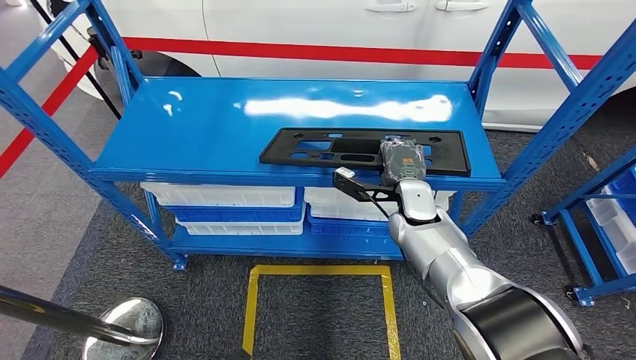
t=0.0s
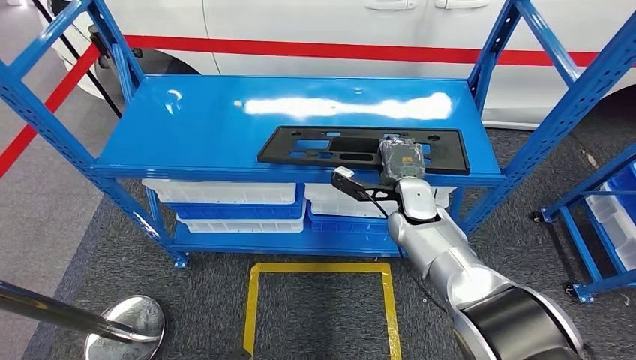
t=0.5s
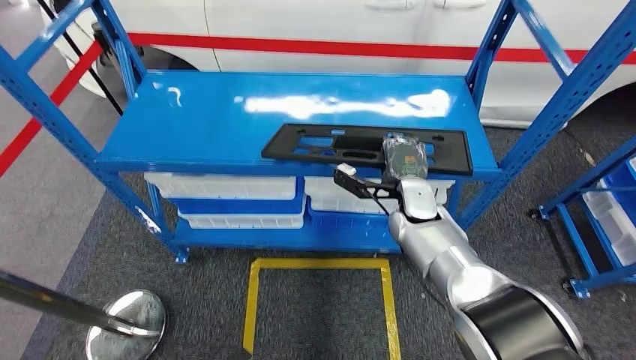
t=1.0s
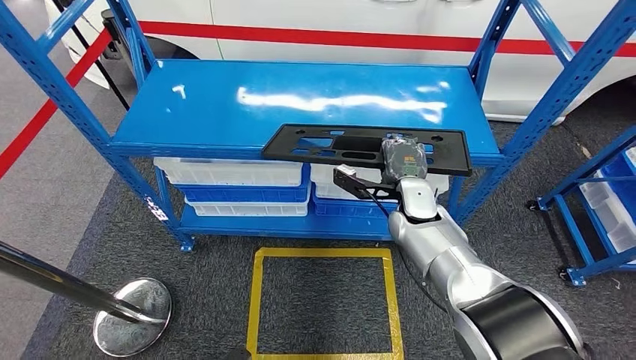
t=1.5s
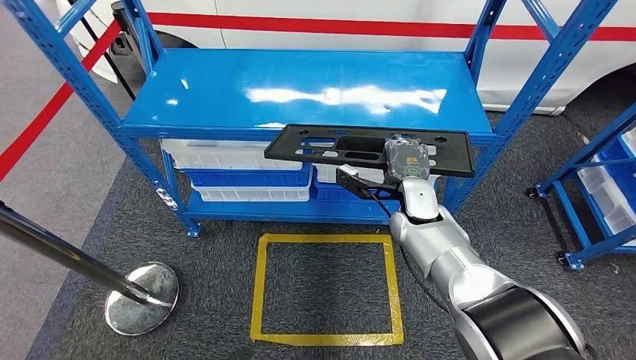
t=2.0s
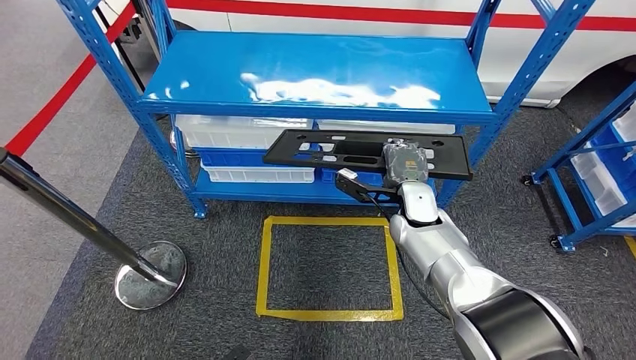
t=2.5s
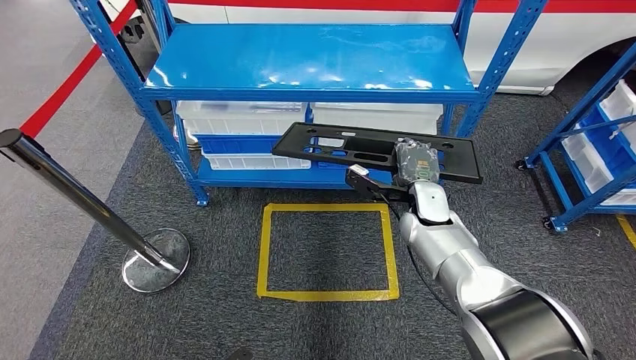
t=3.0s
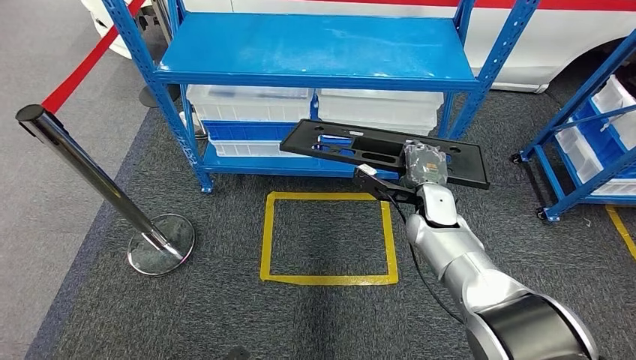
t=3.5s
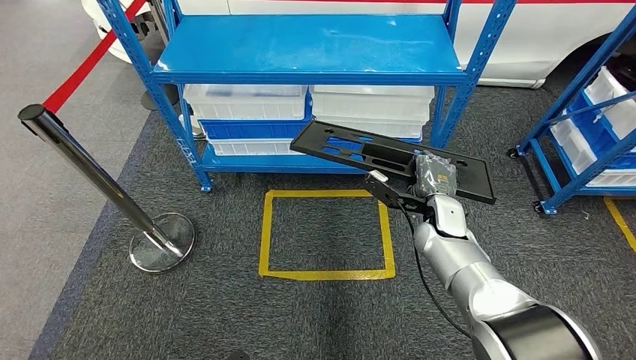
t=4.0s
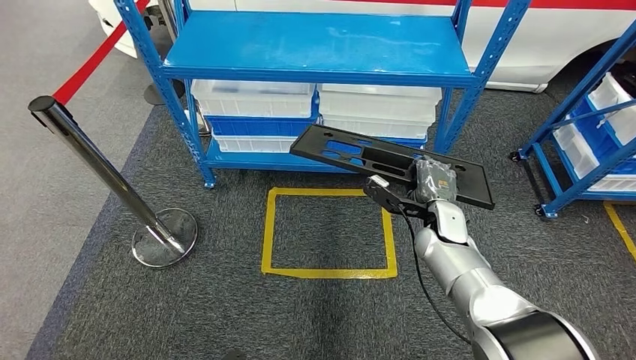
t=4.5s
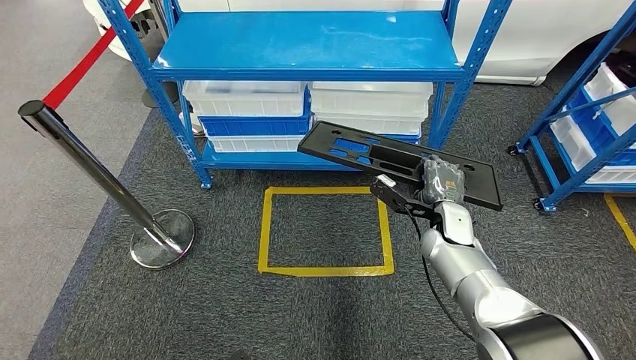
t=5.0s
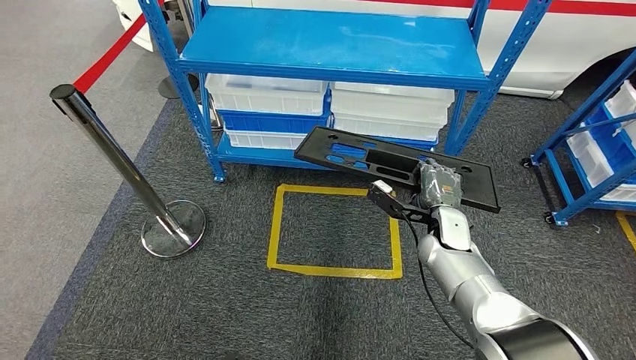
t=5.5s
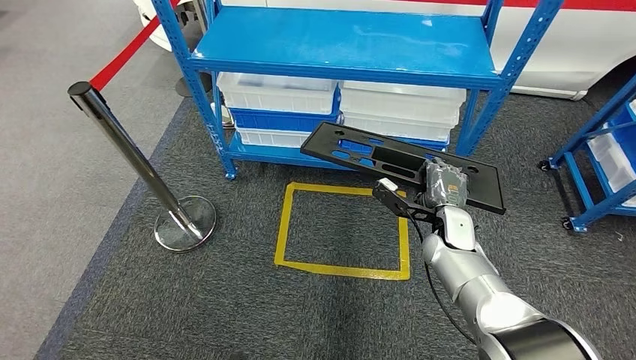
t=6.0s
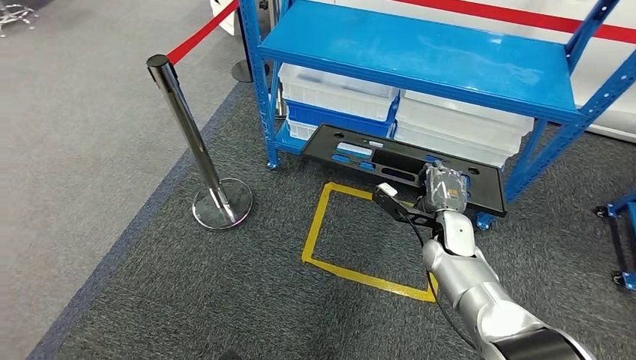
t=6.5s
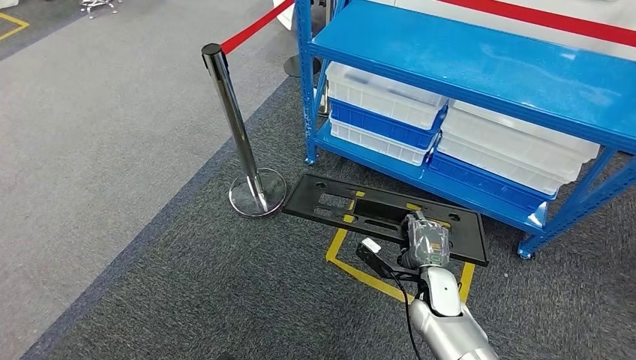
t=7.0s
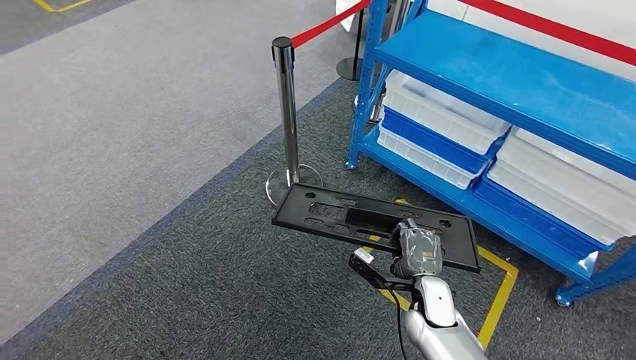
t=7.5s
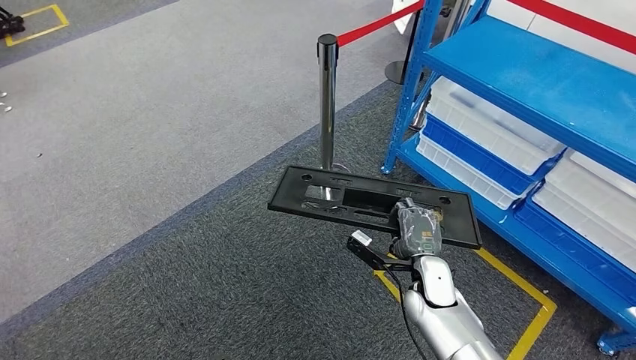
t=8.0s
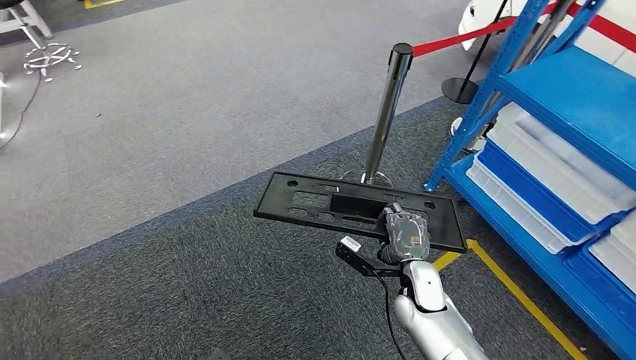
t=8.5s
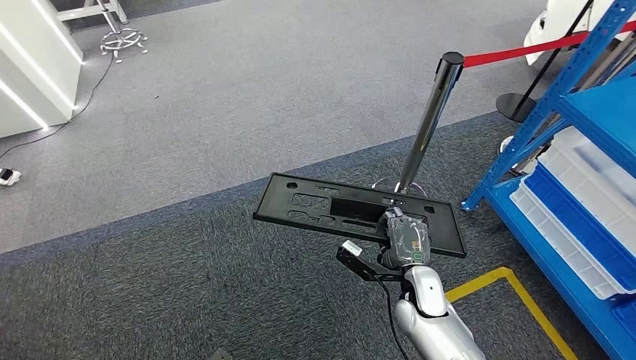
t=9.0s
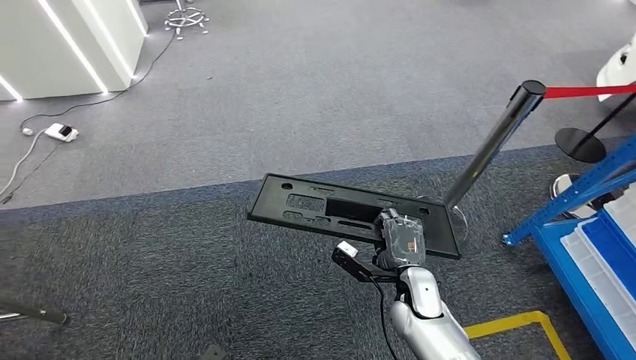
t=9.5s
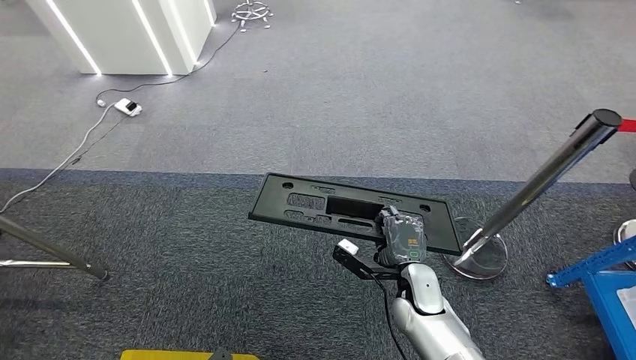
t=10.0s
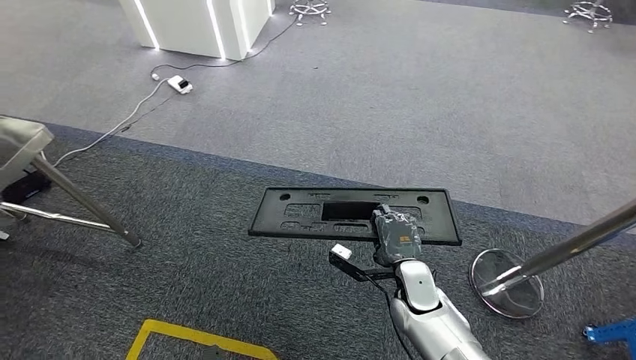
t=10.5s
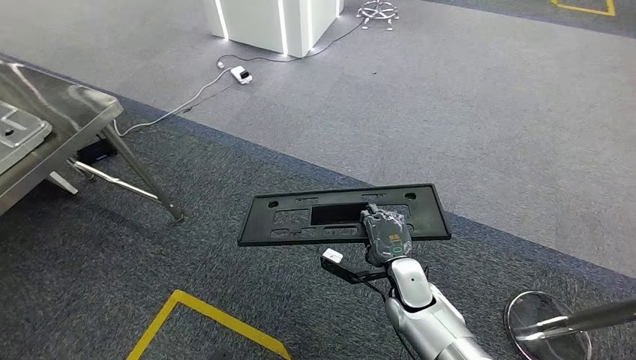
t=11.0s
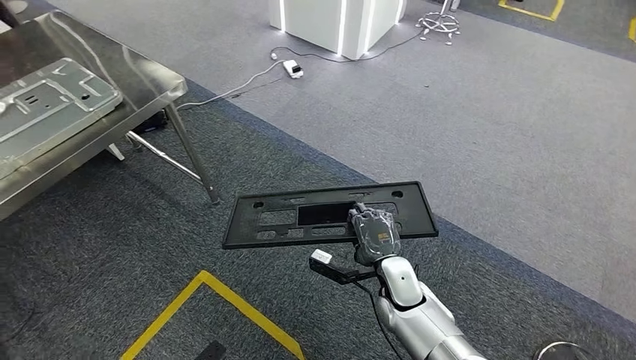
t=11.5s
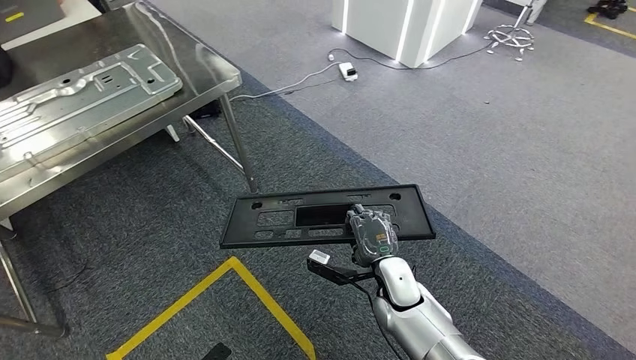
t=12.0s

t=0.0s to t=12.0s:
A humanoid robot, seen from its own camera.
Step, t=0.0s to t=2.5s: Pick up the large material from the shelf.

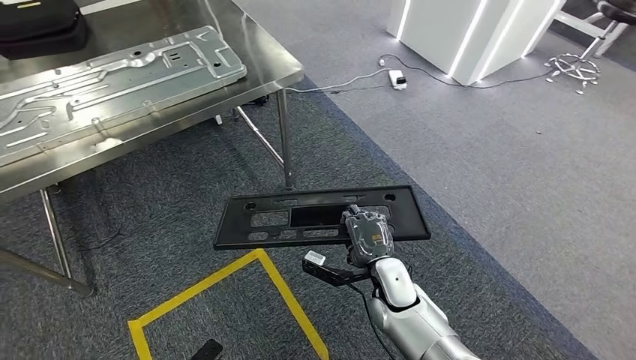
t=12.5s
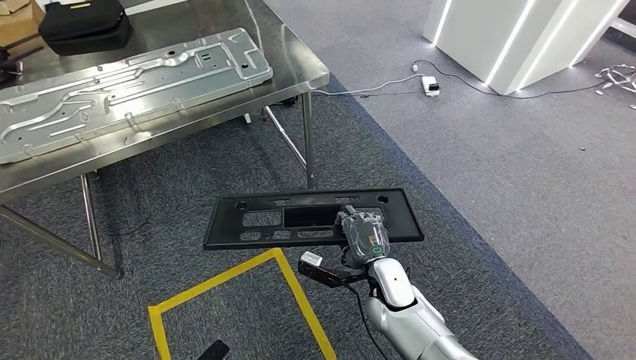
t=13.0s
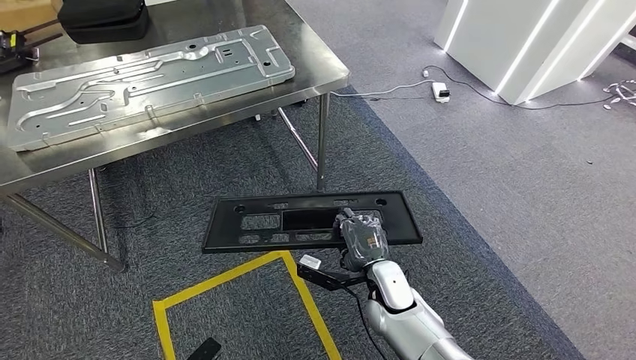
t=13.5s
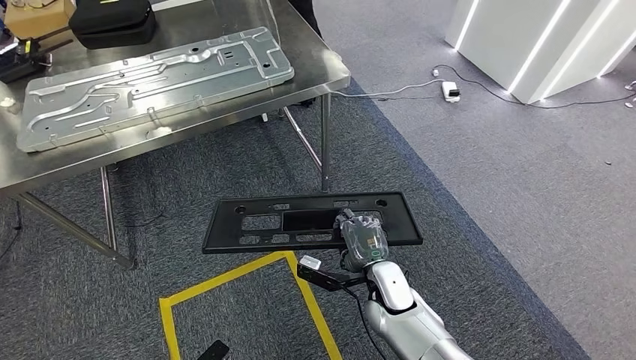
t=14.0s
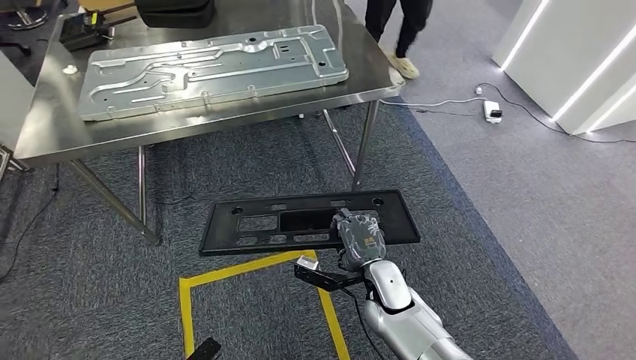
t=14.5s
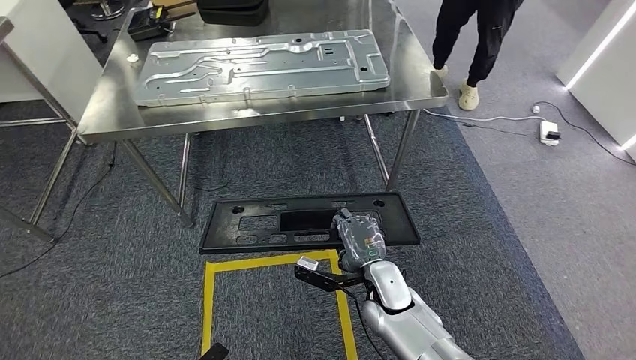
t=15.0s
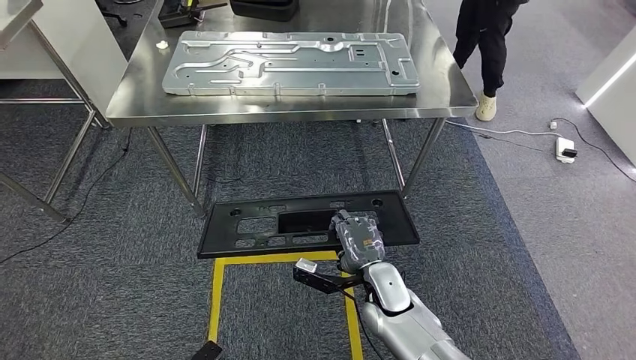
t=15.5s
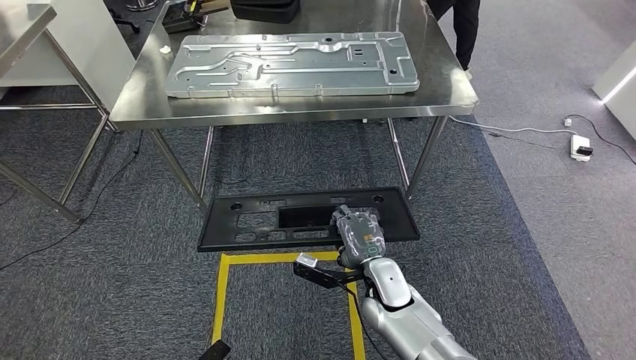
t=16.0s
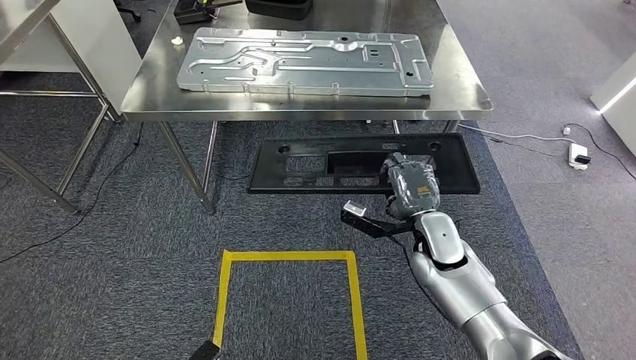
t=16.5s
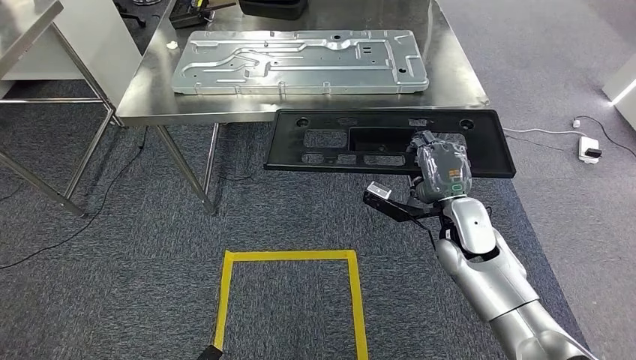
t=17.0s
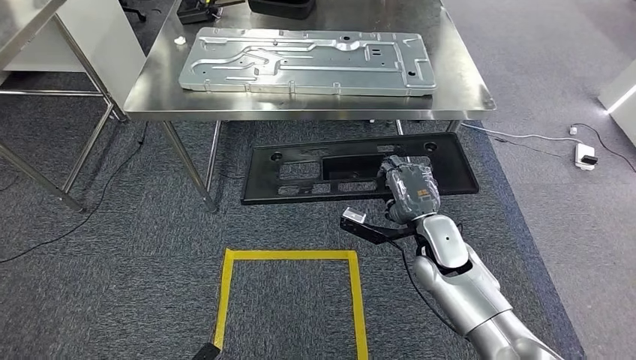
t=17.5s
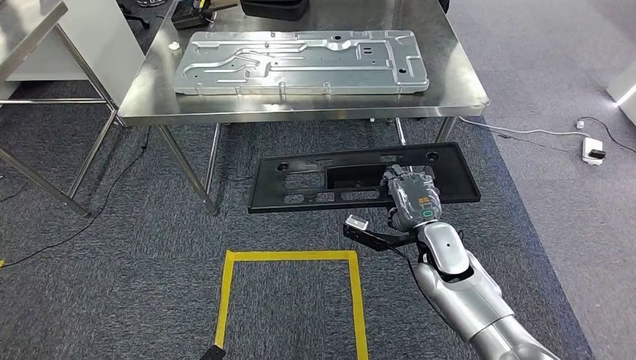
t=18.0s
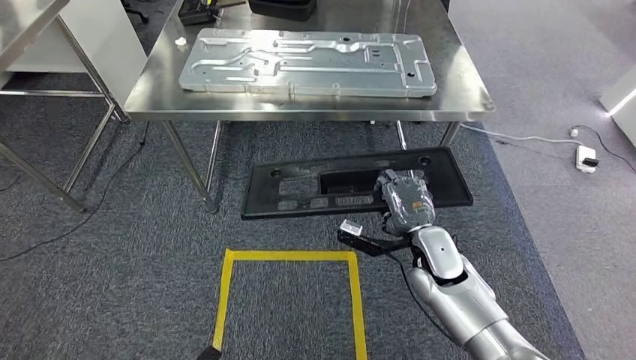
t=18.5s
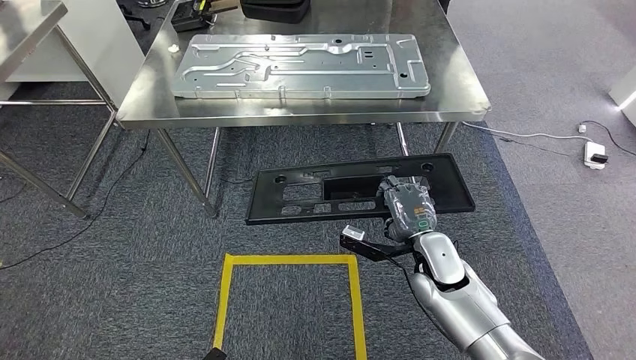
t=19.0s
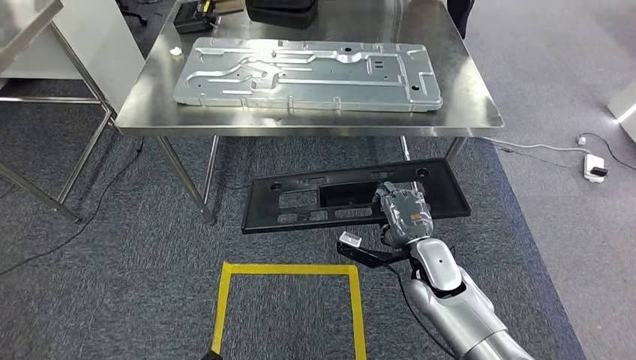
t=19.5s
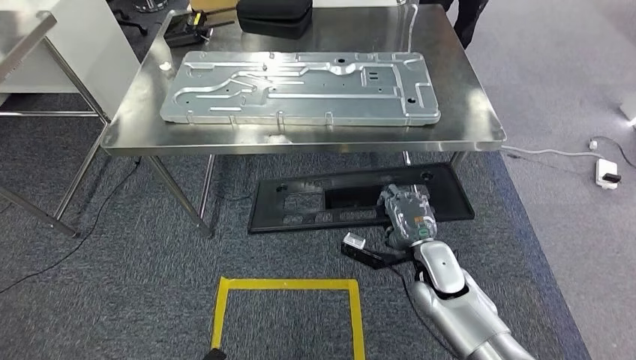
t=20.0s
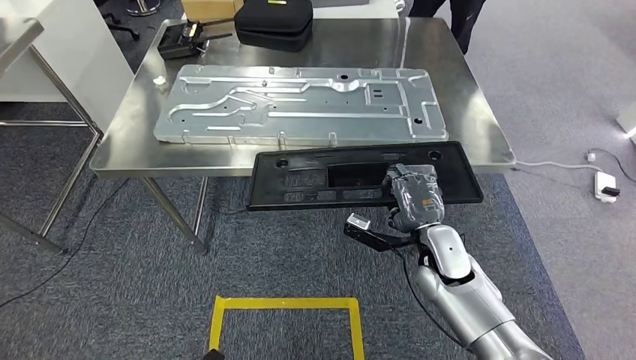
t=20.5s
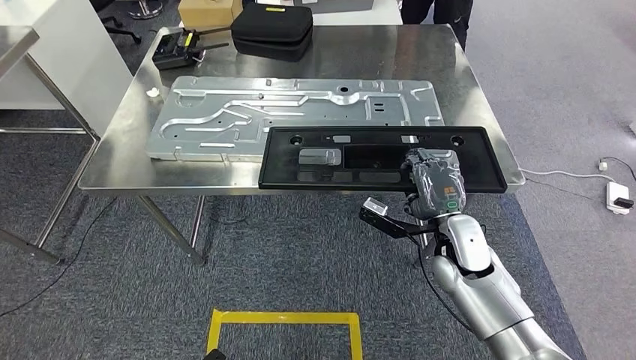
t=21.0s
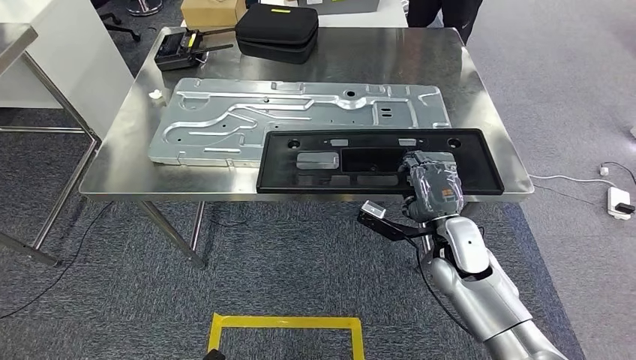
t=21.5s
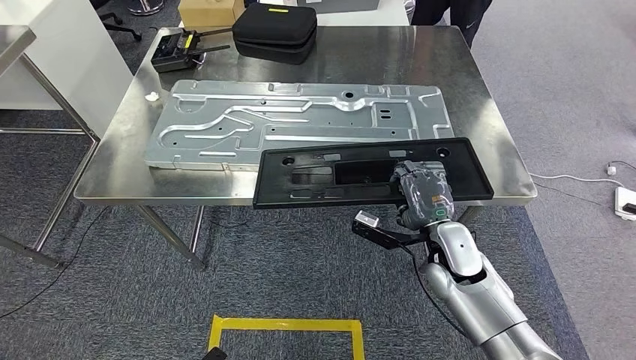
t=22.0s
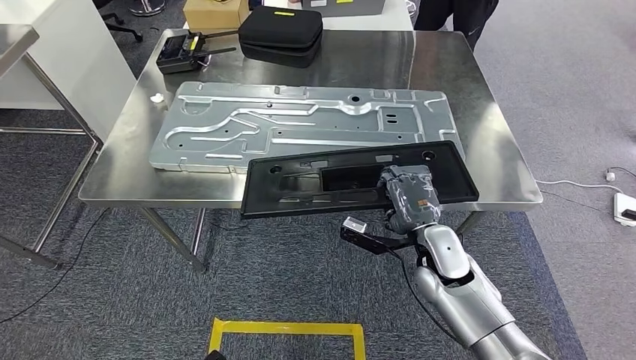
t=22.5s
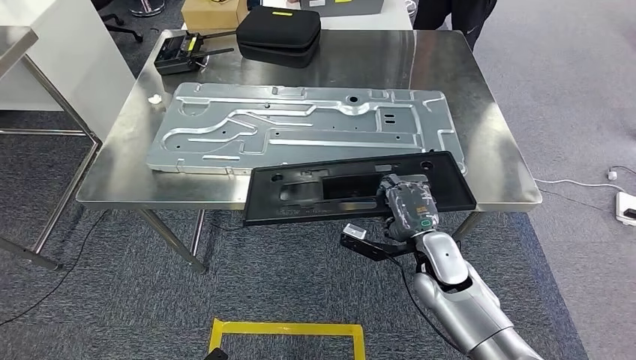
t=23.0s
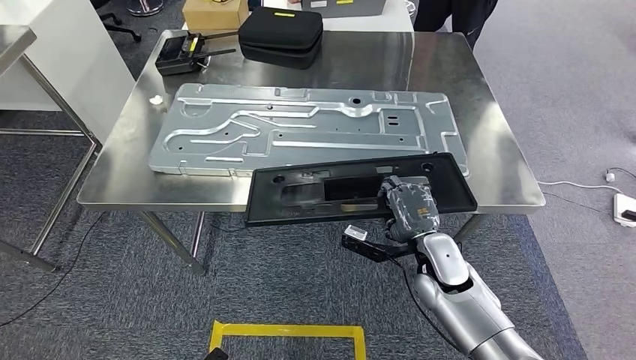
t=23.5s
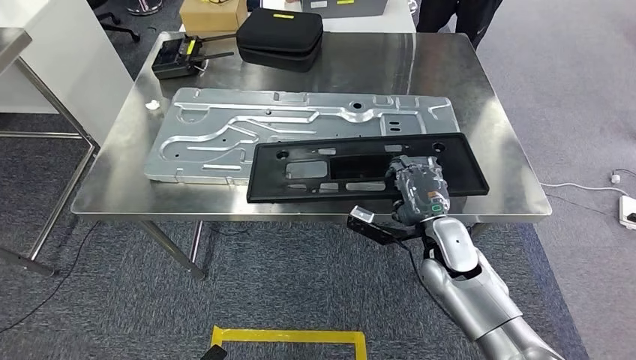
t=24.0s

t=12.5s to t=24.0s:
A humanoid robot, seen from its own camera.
Step, t=12.5s to t=22.5s: Move the large material to the workbench.
t=16.5s to t=18.5s: The hands make only small movements.
